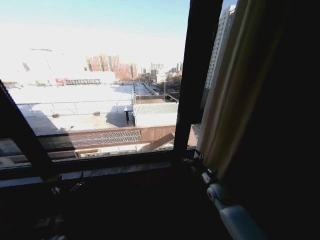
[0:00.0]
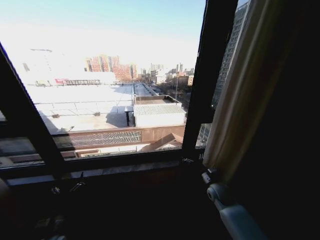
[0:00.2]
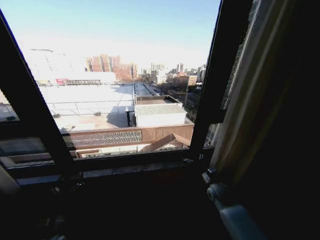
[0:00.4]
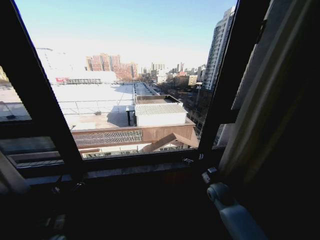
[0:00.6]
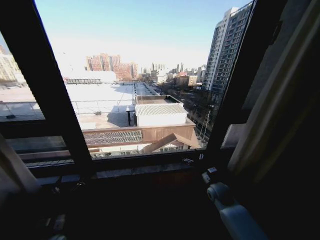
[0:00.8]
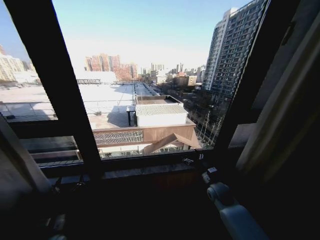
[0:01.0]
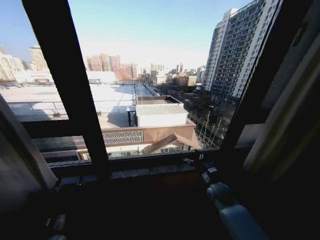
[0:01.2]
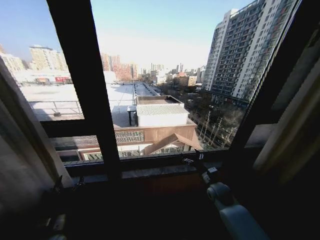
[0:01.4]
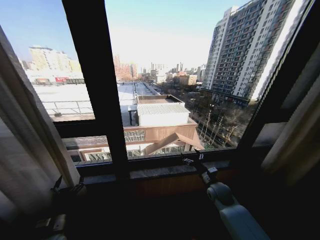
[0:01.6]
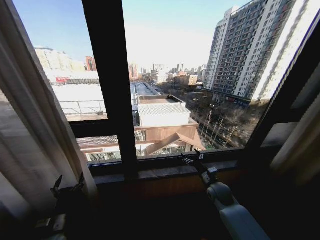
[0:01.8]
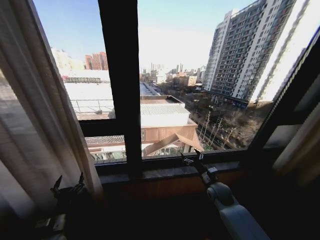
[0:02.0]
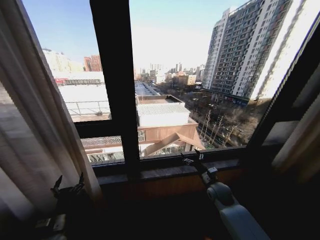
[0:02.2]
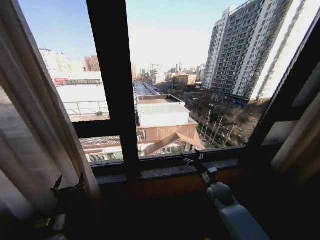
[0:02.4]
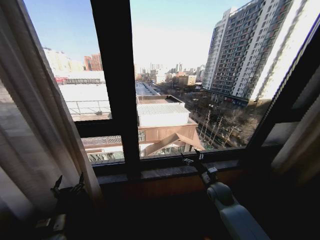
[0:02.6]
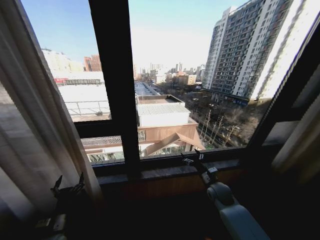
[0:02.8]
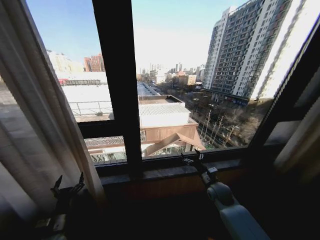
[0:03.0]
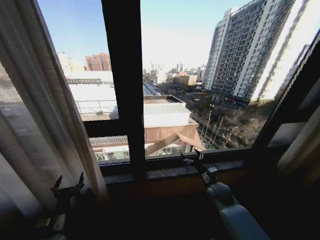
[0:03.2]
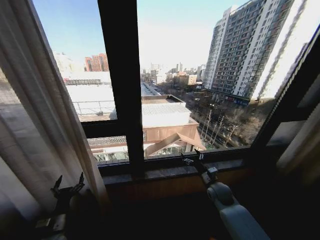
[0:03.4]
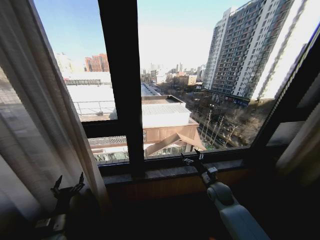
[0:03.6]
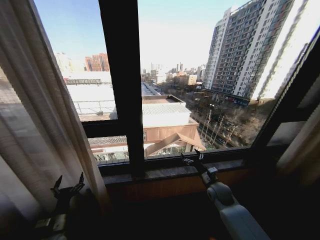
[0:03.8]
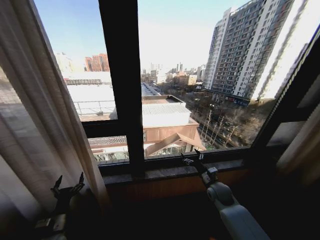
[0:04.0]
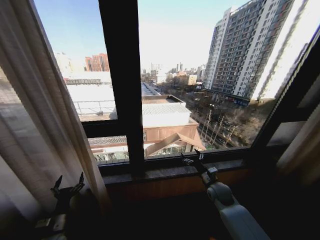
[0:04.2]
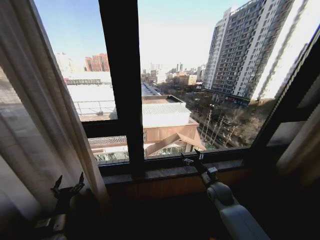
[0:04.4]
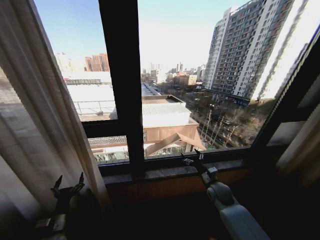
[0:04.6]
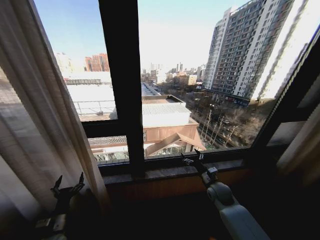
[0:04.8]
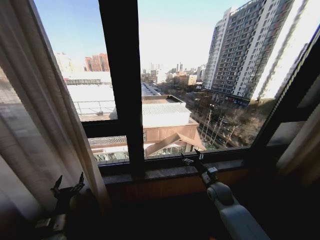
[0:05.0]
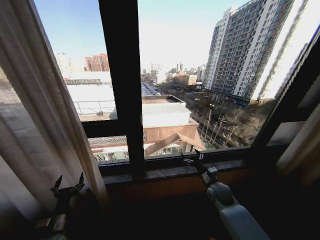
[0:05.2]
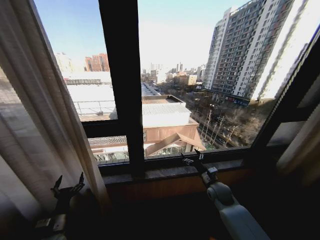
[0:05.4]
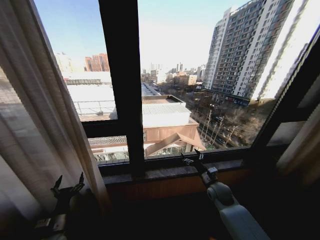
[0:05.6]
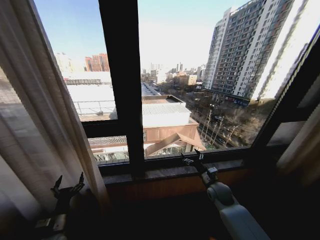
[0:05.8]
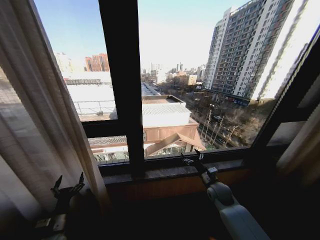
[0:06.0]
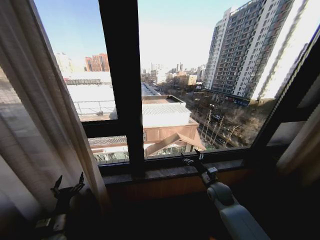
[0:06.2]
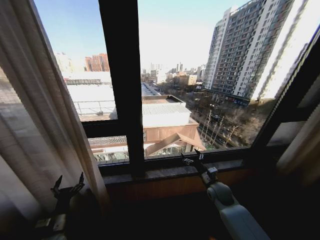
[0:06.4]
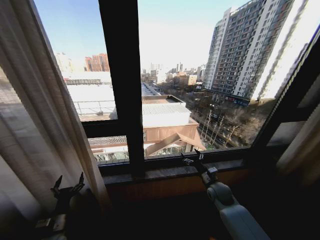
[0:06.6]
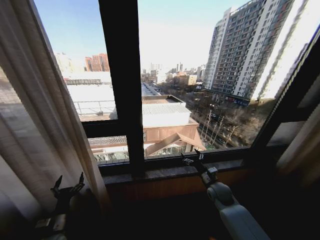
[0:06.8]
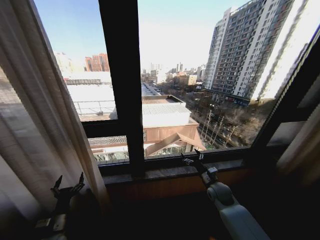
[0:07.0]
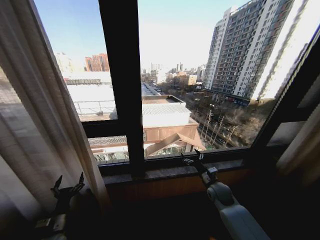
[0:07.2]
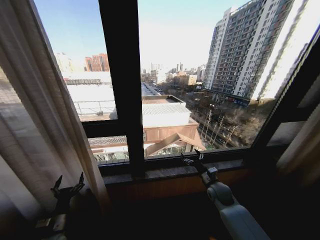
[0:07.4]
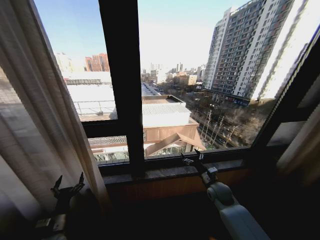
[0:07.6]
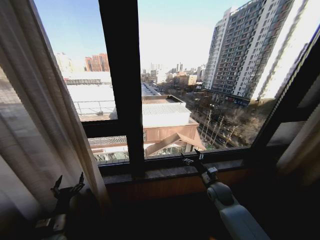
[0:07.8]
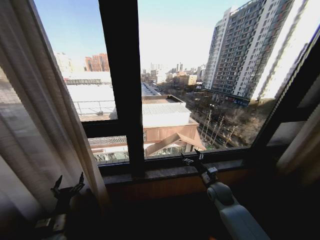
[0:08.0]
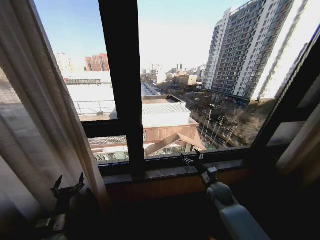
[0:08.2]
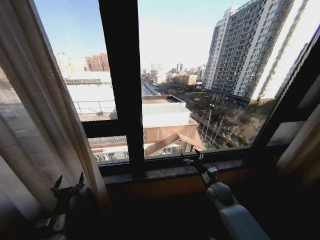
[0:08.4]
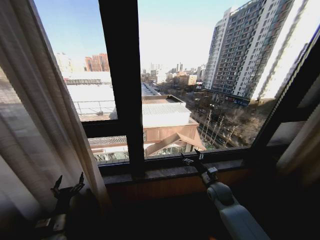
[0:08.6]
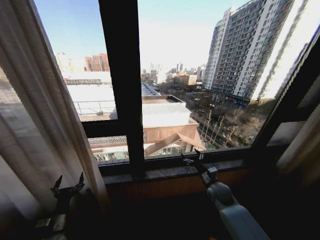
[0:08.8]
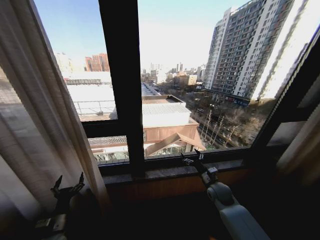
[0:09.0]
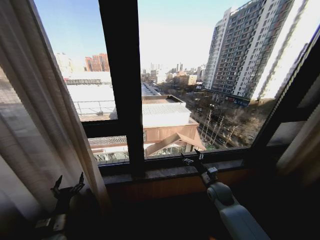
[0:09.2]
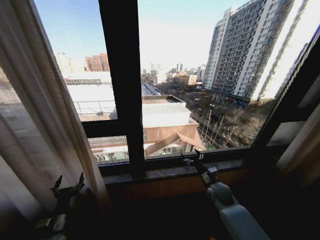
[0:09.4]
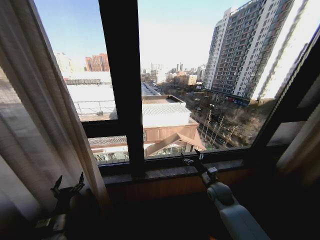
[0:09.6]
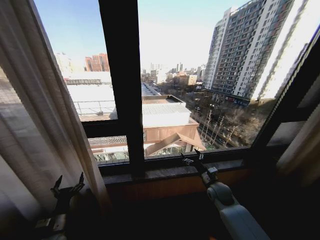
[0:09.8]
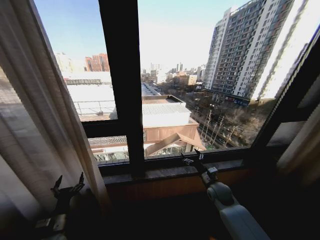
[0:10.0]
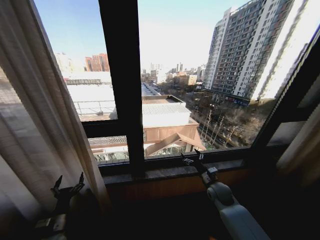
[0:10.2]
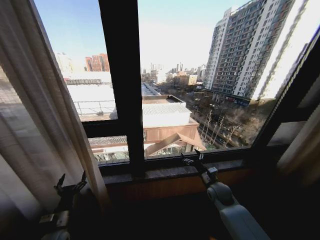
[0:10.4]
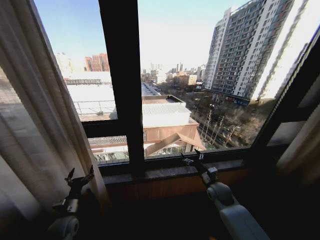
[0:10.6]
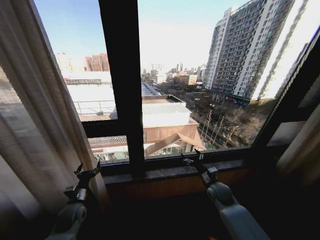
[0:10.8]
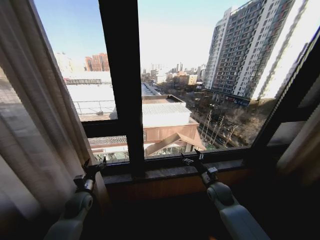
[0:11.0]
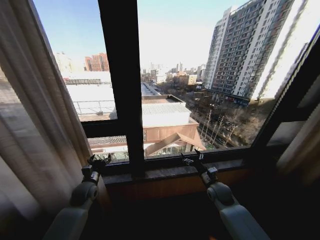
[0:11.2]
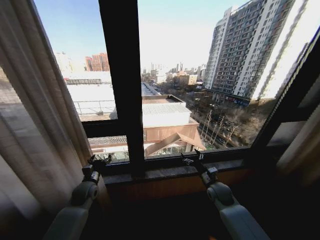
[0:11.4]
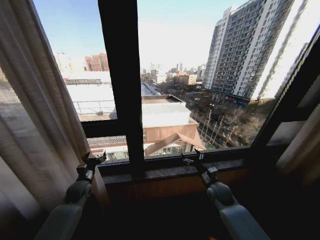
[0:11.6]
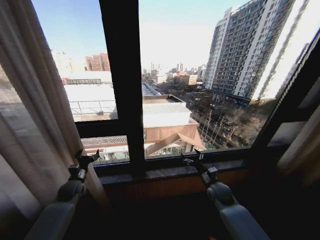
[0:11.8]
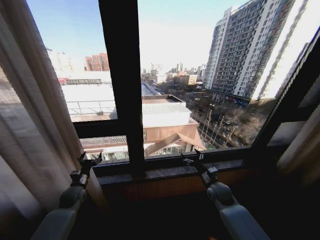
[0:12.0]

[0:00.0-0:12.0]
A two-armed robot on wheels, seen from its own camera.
Task of the whole recording: Open the curtains by pulling them apart, changing their state from closed to fully open.
0:03.0 to 0:10.4: Neither gripper changes place.
0:10.4 to 0:12.0: The left gripper goes approximately 15 cm forward.

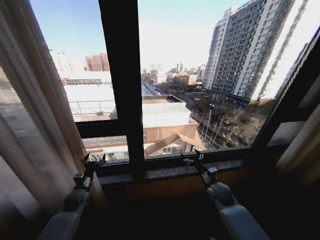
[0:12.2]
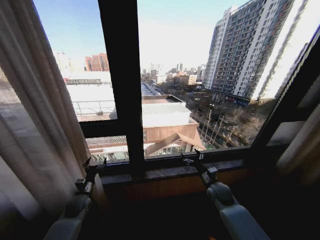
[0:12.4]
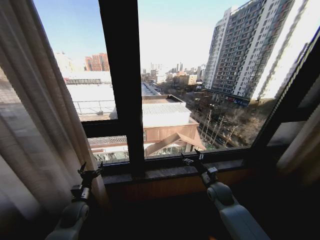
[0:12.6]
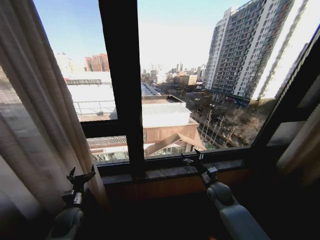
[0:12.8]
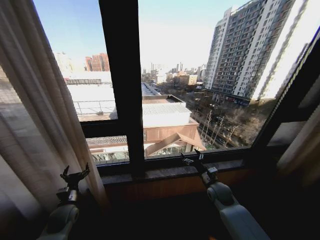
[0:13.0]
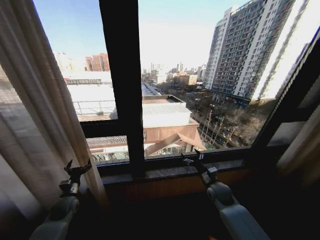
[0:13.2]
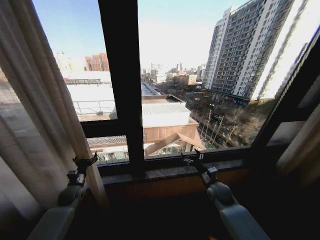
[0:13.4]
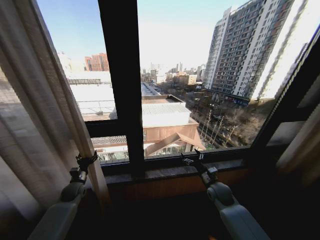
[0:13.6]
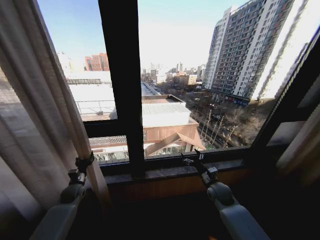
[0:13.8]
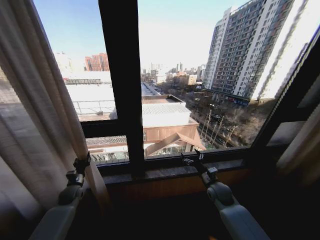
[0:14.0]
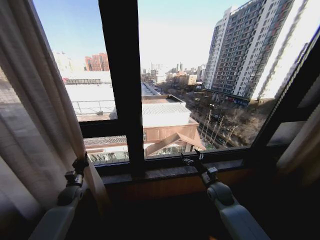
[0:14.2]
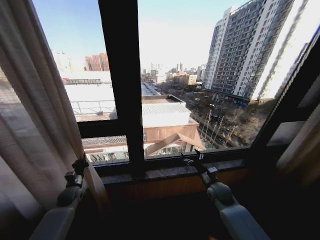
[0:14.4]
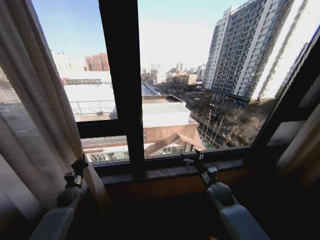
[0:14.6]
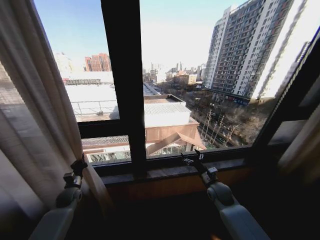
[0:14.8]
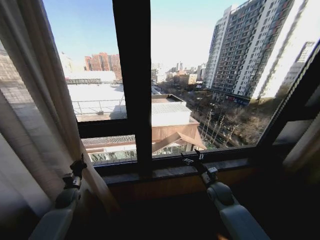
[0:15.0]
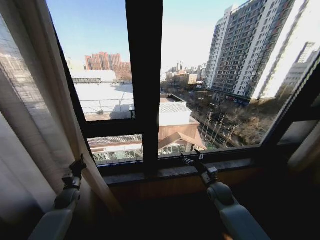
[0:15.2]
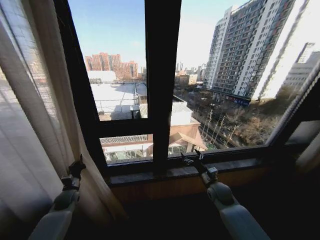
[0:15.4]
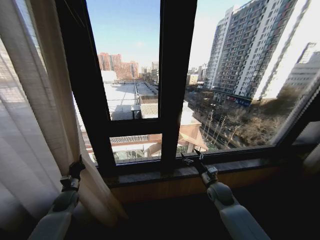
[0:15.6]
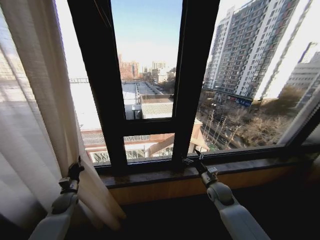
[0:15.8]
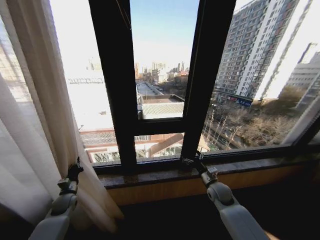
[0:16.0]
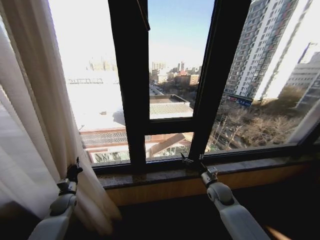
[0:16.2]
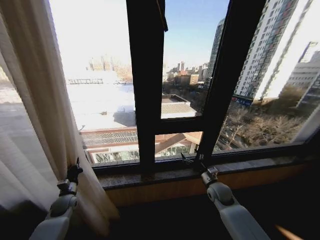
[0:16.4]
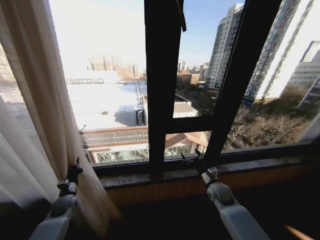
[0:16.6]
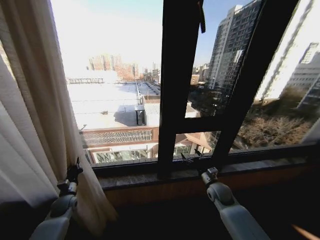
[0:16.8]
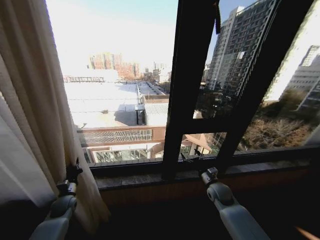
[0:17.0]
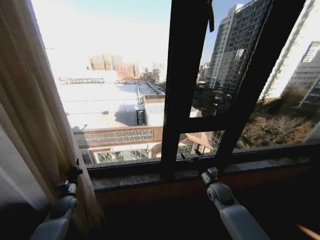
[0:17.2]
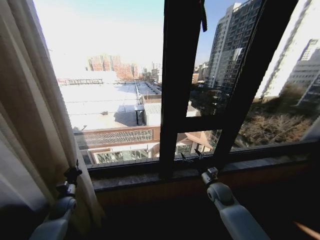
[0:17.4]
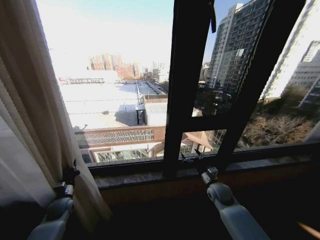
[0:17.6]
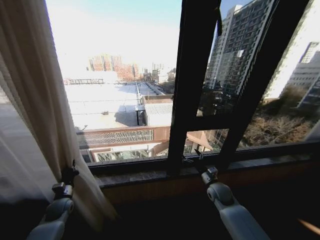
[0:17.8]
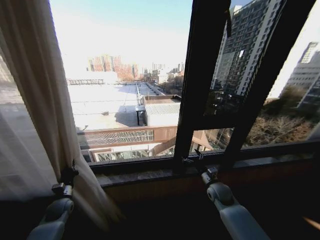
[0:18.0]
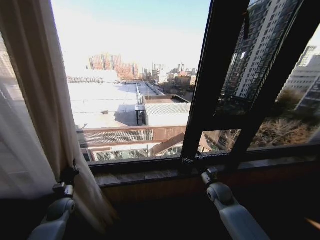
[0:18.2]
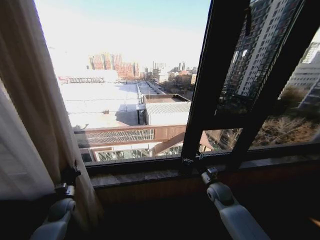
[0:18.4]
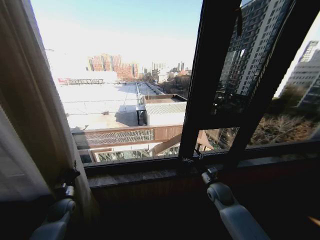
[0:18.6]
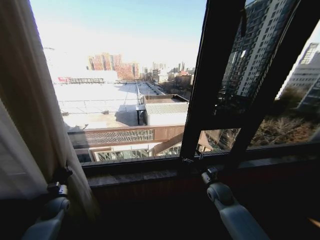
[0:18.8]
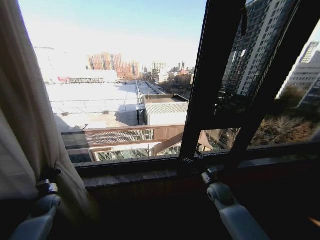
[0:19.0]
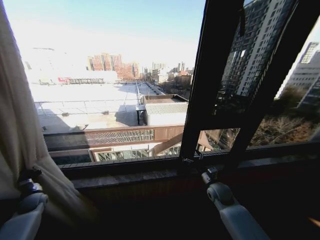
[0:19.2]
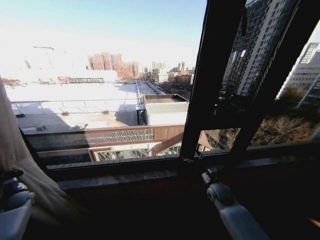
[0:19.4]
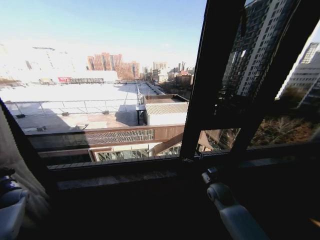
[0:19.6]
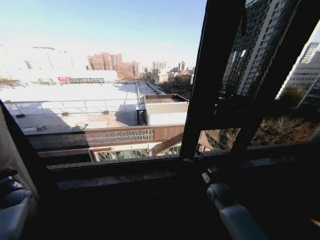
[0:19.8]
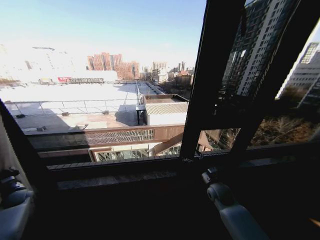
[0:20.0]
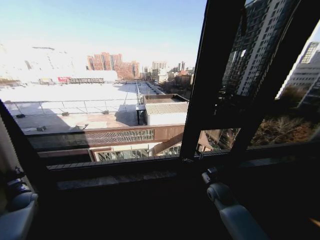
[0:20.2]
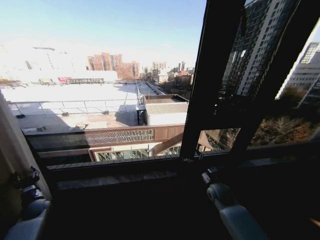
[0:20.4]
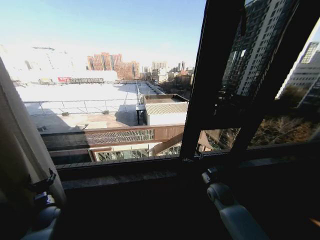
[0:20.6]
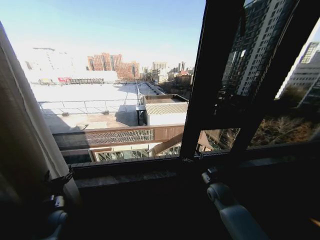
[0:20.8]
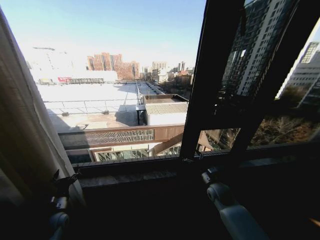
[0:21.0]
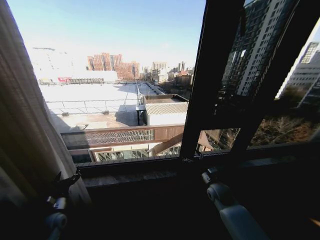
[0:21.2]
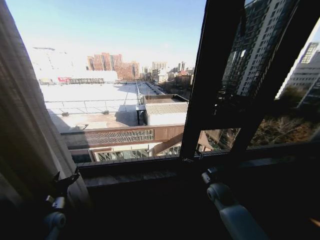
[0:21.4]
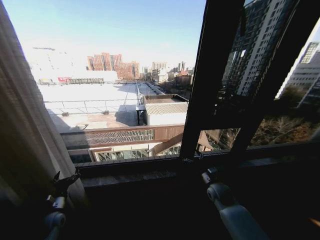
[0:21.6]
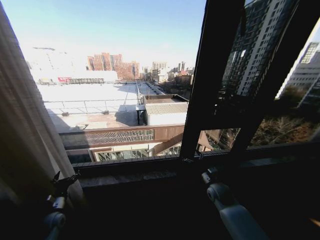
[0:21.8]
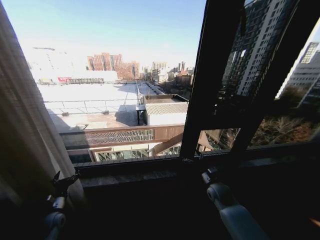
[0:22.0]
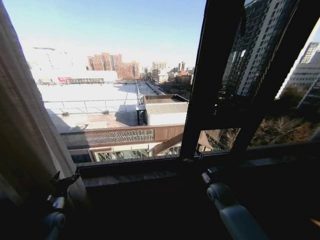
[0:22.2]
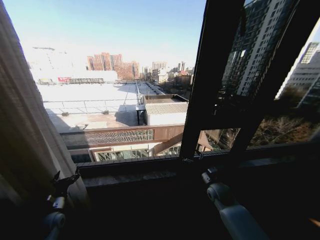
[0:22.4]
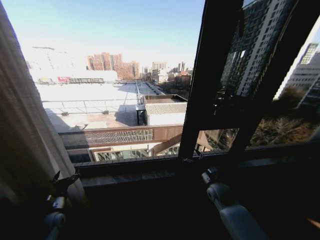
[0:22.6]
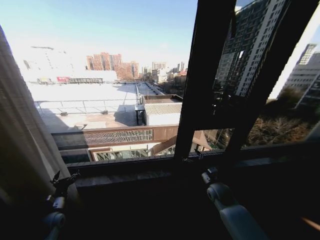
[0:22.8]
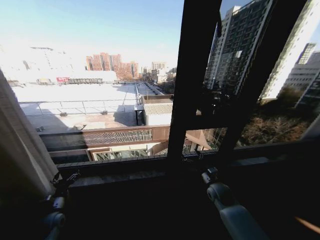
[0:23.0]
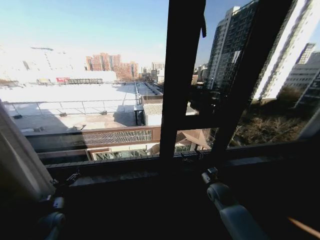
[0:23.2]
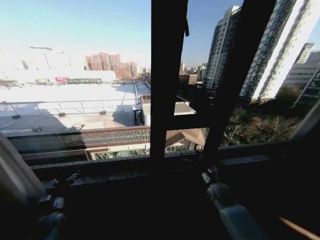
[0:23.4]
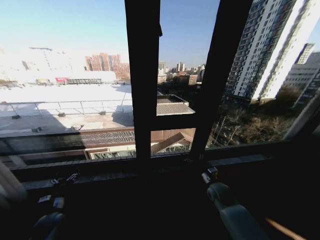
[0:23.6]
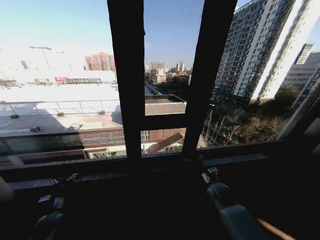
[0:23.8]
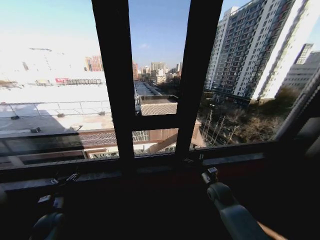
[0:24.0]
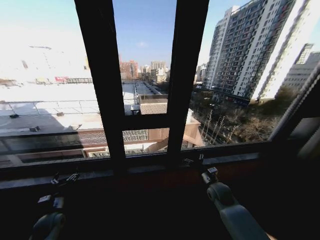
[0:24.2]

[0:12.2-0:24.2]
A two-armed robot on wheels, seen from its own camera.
Task of the whole recording: Open the curtains by pulling them apart, changing their state from closed to fully open.
0:12.2 to 0:13.8: The left gripper reaches about 10 cm backward, then returns.
0:13.8 to 0:15.2: The left gripper closes its fingers.
0:18.2 to 0:19.8: The left gripper travels to the left by about 20 cm.
0:19.8 to 0:21.2: The left gripper is displaced to the right by about 20 cm, and opens.
0:21.2 to 0:22.6: Neither gripper changes place.
